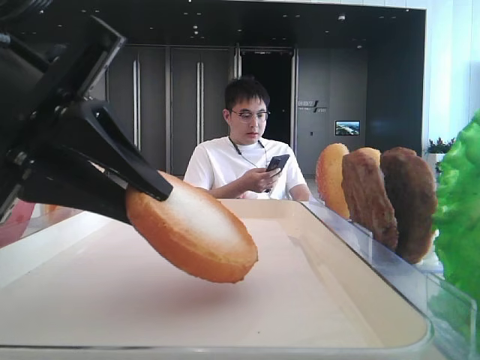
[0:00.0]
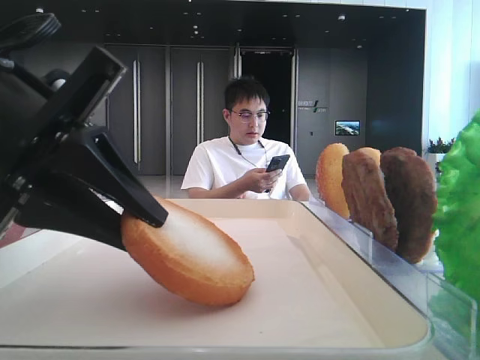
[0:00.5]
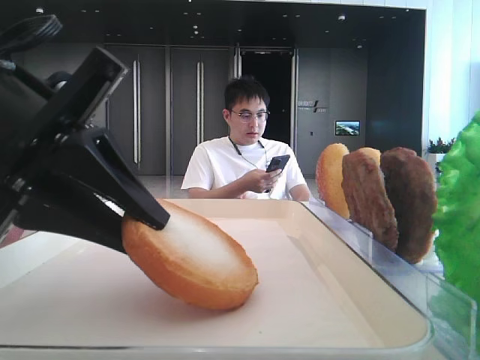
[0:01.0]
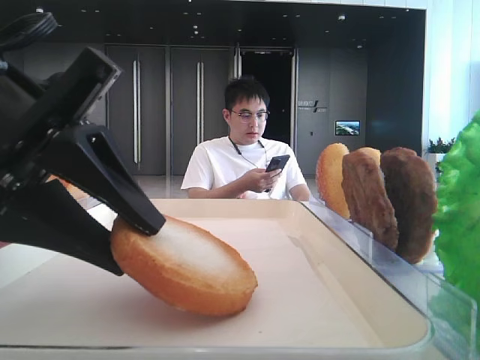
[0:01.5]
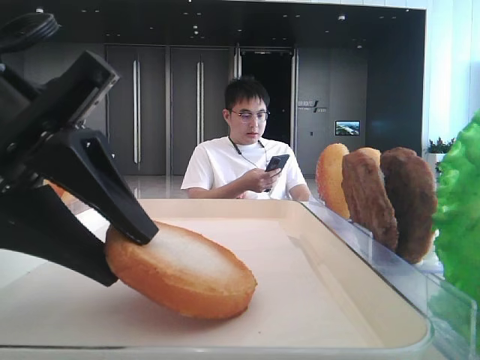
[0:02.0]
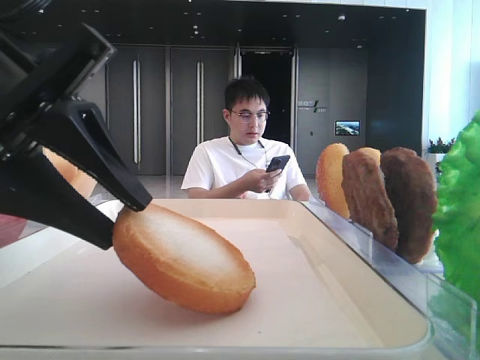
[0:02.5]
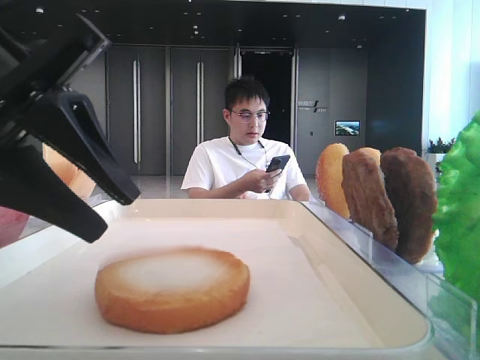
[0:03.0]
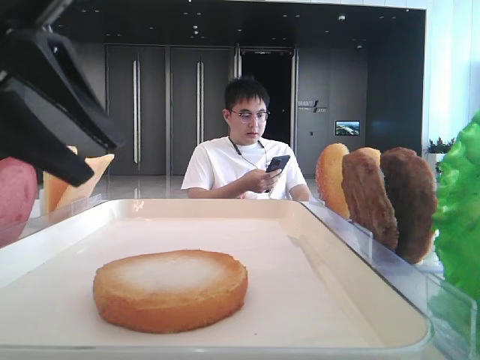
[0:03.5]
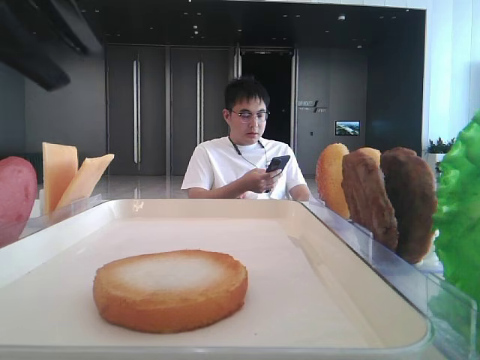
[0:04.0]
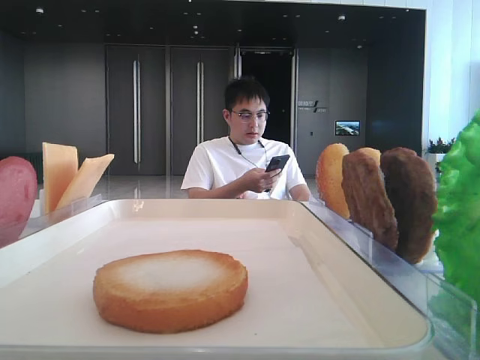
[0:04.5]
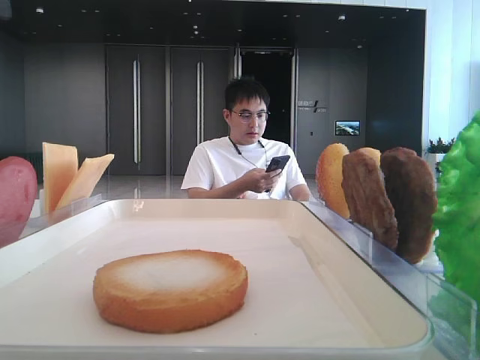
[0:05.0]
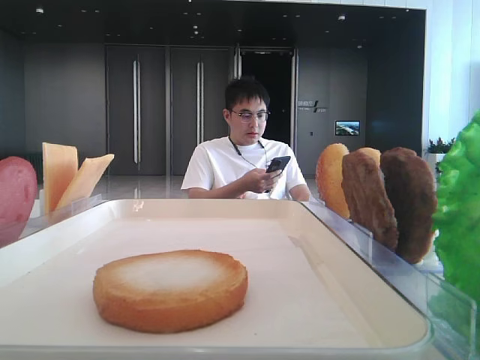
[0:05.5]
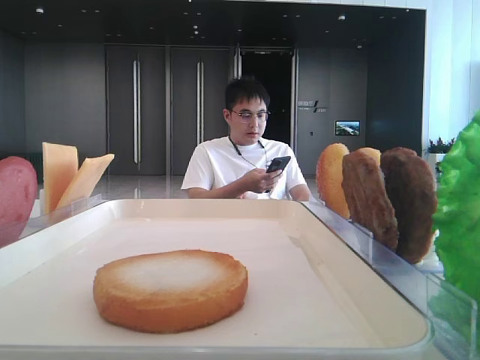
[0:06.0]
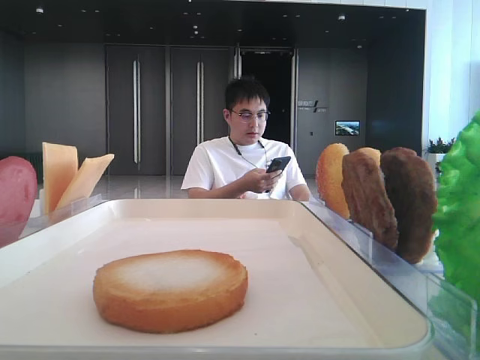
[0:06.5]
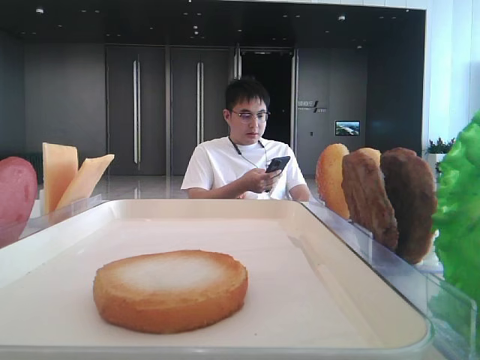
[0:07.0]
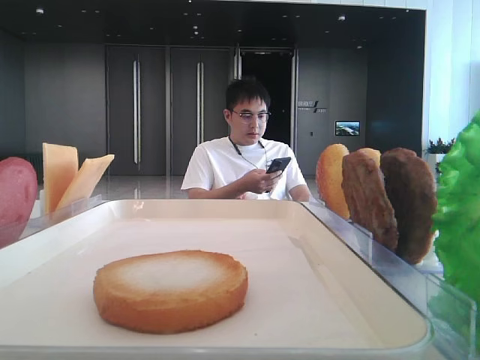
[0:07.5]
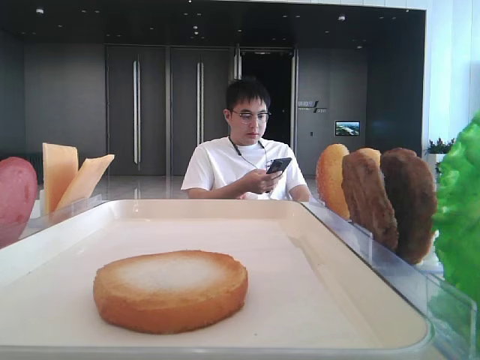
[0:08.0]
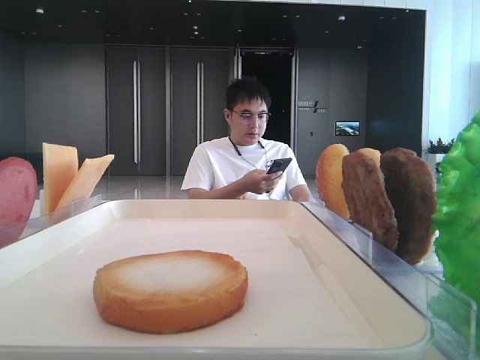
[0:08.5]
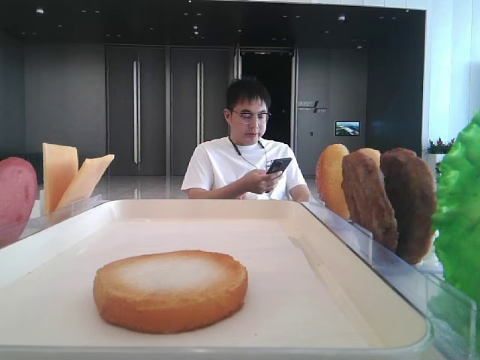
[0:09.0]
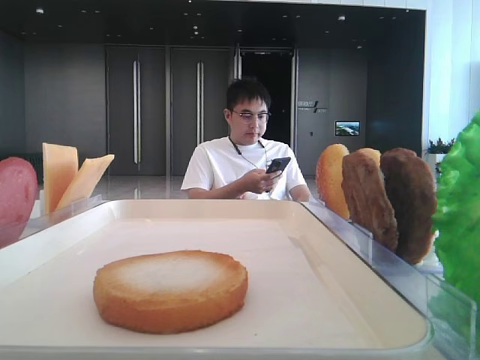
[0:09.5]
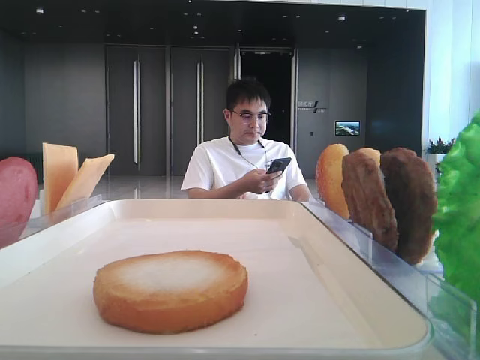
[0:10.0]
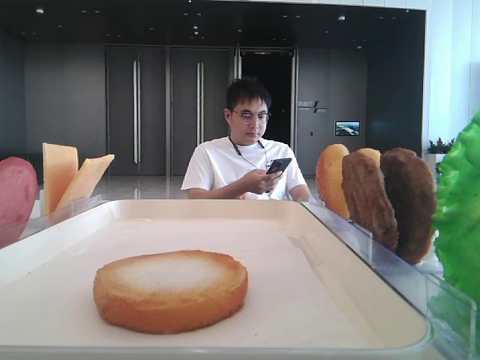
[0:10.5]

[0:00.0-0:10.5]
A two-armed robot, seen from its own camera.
Step, 0:00.0 to 0:02.5: Place the bread on the tray with the left hand.
0:00.0 to 0:02.0: There are only small adjustments of the grippers.
0:02.0 to 0:04.0: The left gripper shifts roughly 10 cm upward.
0:04.0 to 0:06.5: The left gripper heads to the left and upward, covering about 20 cm, and opens up.

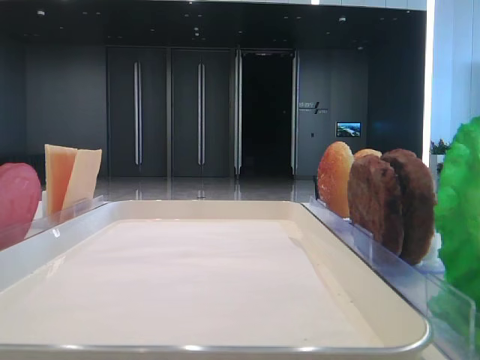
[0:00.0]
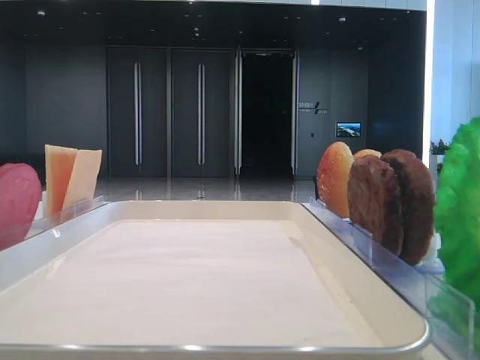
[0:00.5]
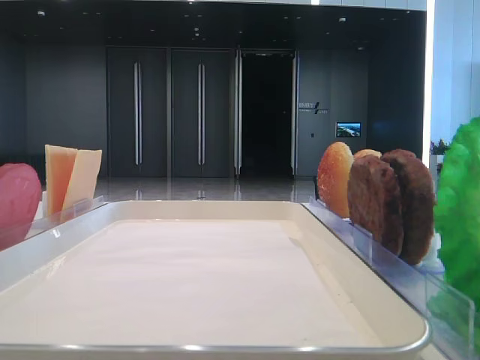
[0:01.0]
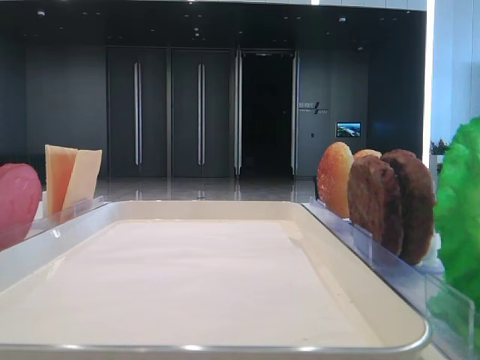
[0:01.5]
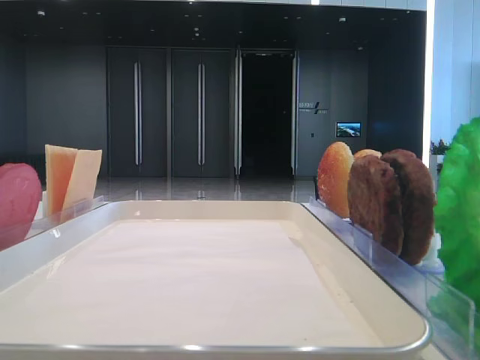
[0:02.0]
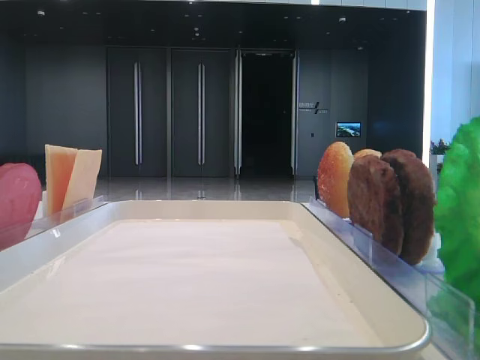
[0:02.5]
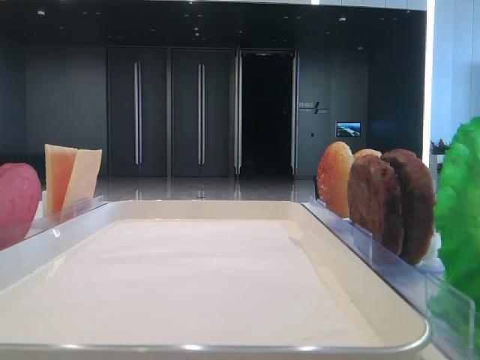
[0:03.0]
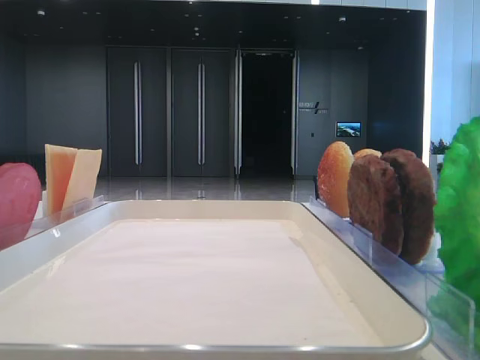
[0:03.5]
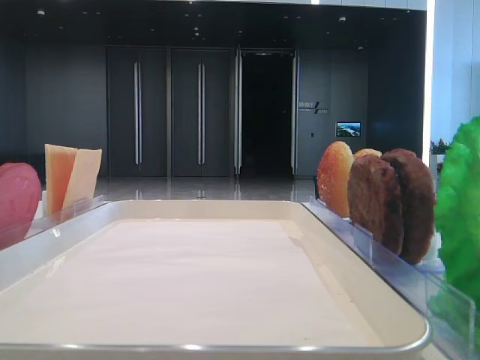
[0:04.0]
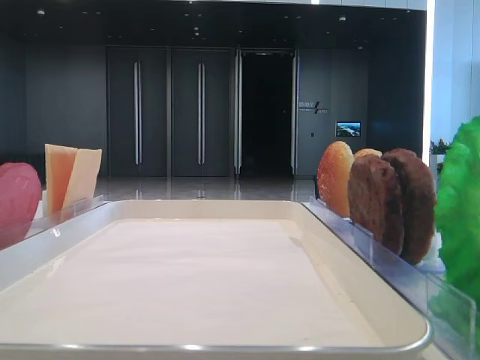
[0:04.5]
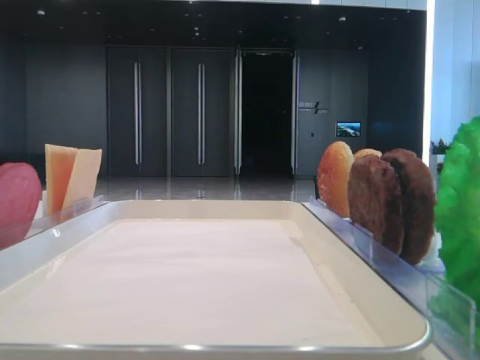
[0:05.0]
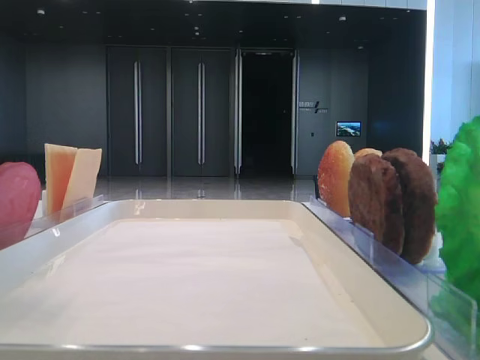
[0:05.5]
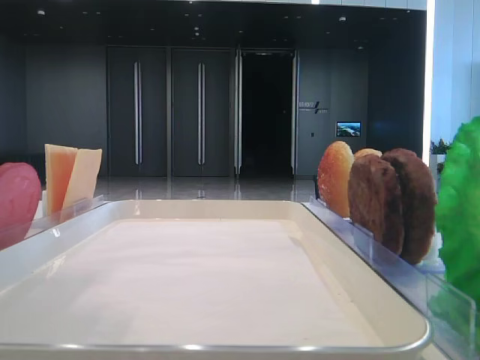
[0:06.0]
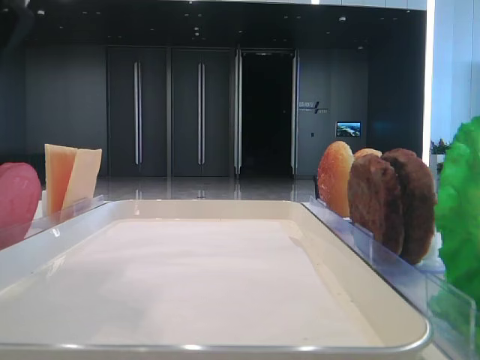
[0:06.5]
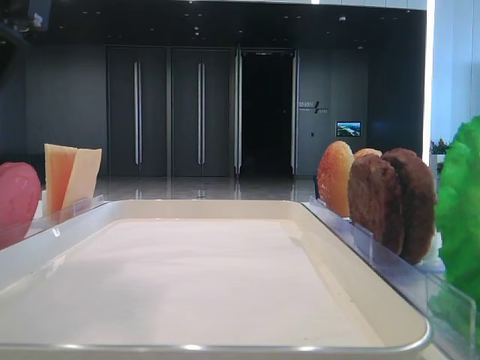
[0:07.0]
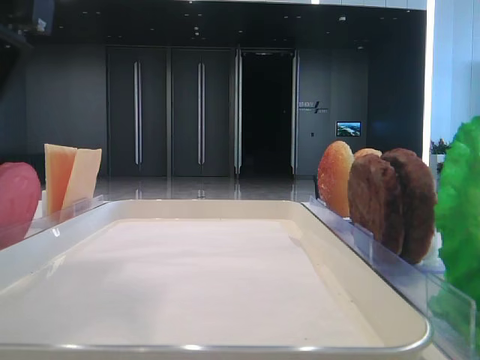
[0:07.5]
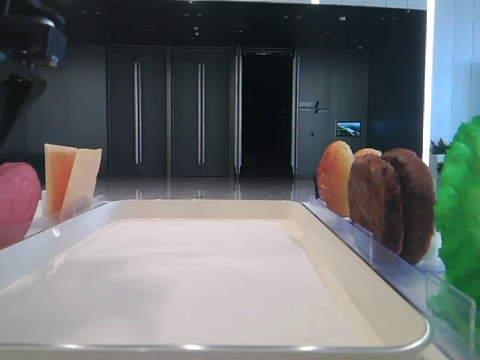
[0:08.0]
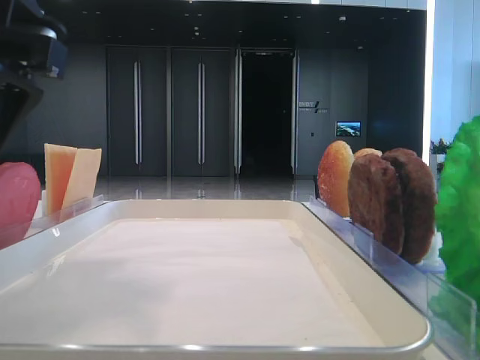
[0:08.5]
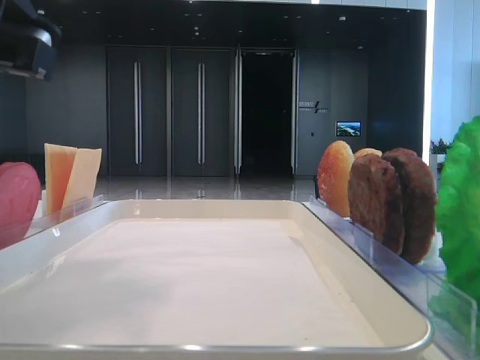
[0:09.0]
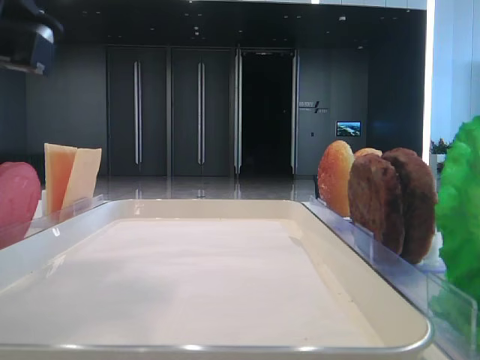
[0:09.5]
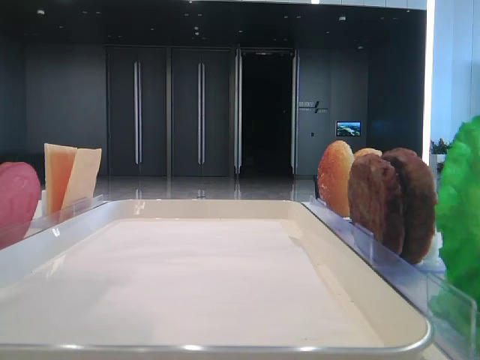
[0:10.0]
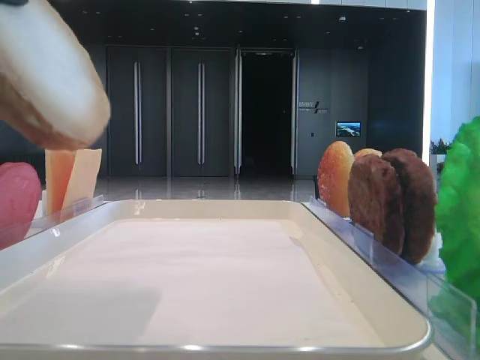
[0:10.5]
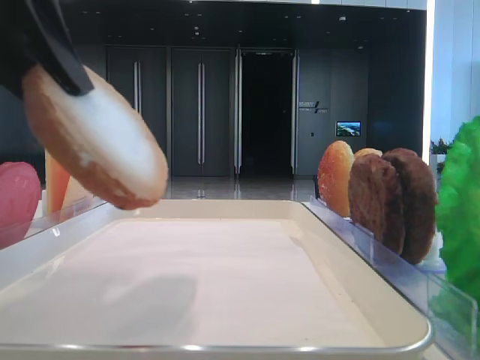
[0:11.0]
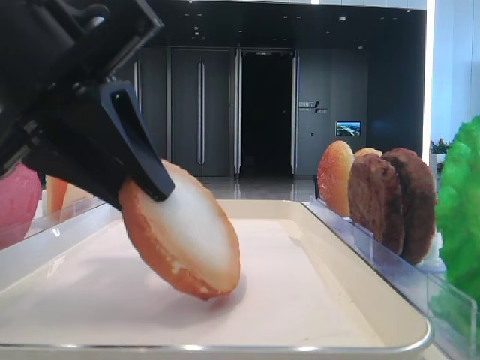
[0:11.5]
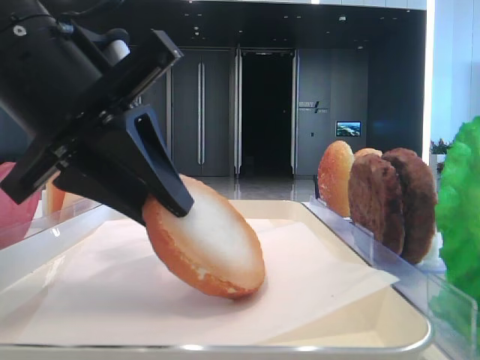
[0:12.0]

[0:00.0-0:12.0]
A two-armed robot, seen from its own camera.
Step, 0:00.0 to 0:09.0: Pick up the bottom bread with the left hand.
0:04.0 to 0:06.0: The left gripper goes some 15 cm to the right.
0:06.0 to 0:08.0: The left gripper shifts some 5 cm downward.
0:08.0 to 0:10.0: The left gripper is displaced upward by approximately 5 cm, and closes up.
0:10.0 to 0:12.0: The left gripper goes roughly 15 cm downward.

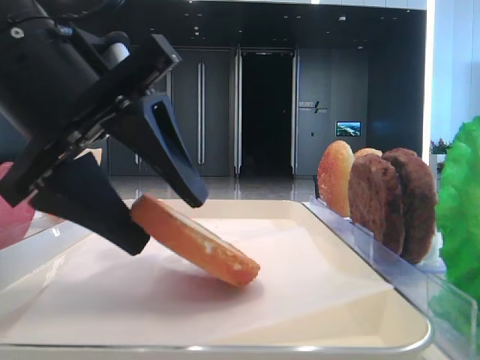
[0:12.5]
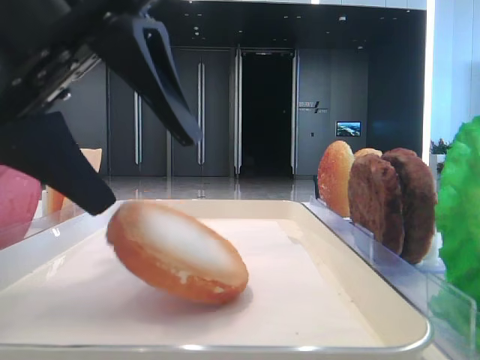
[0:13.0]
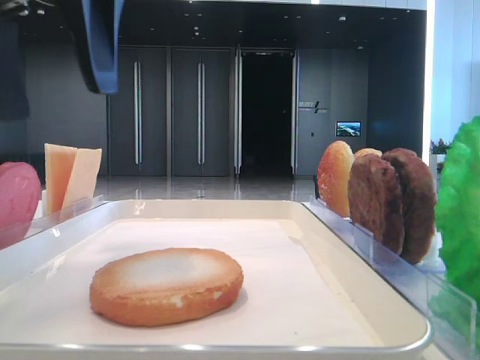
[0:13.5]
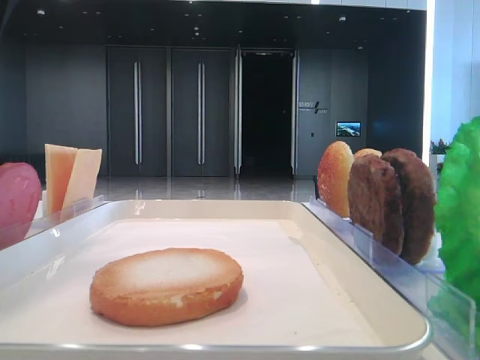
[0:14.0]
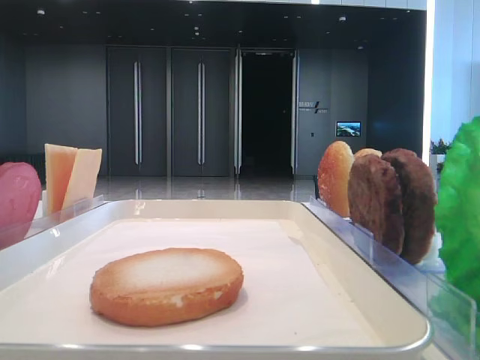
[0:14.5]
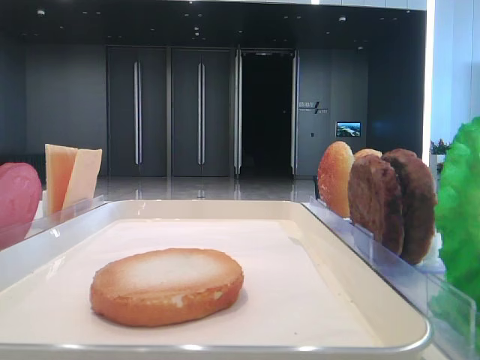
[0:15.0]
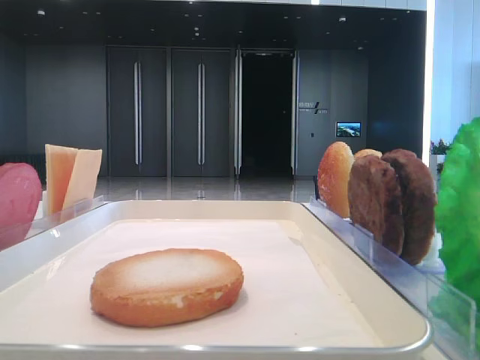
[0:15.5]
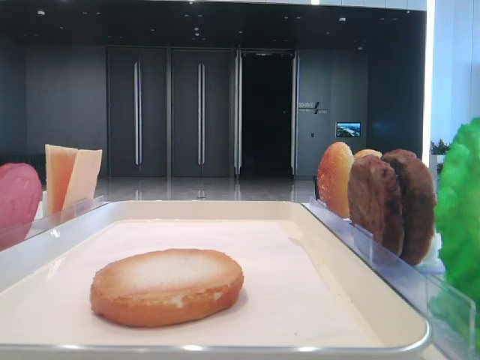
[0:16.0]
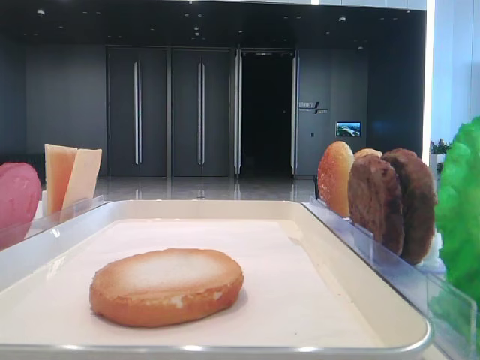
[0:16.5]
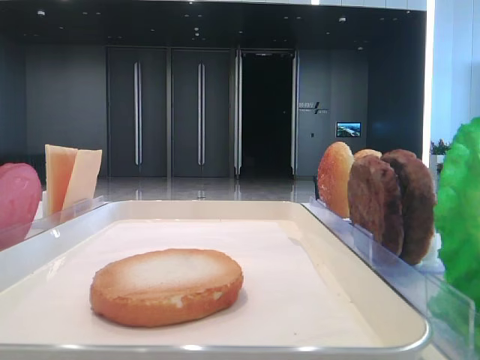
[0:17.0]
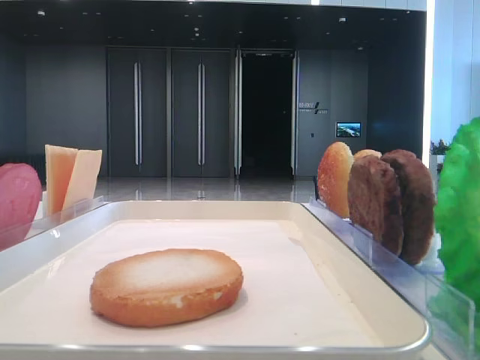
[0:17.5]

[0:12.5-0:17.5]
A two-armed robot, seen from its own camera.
0:12.5 to 0:15.0: The left gripper heads to the left, upward and backward, covering roughly 20 cm, and opens its fingers.
